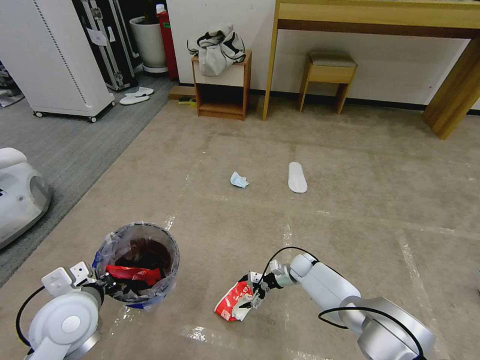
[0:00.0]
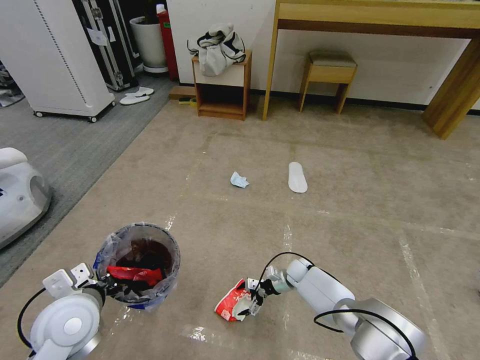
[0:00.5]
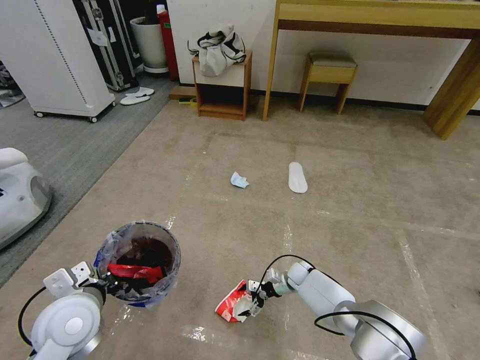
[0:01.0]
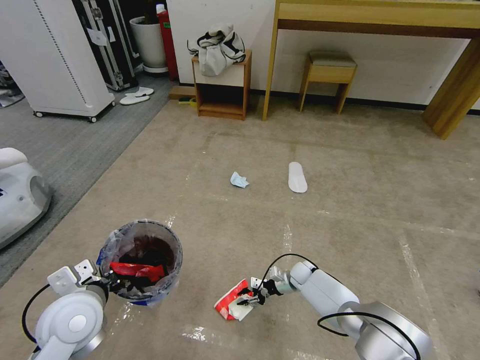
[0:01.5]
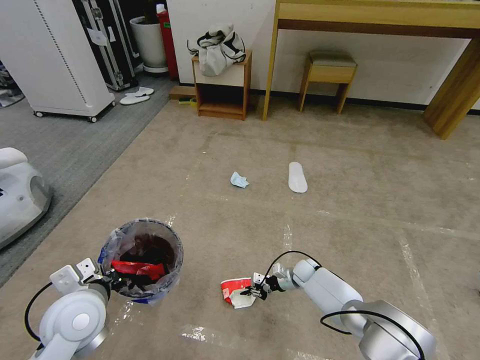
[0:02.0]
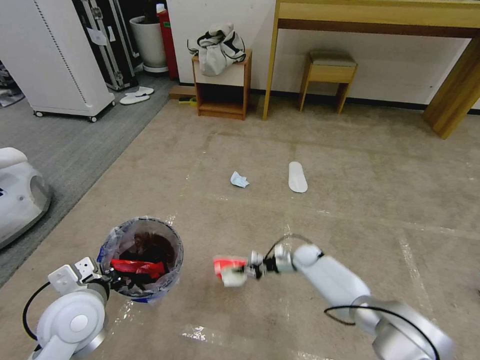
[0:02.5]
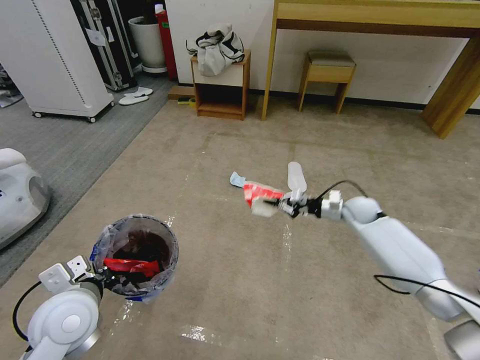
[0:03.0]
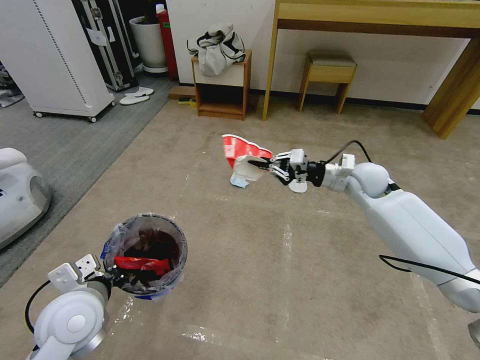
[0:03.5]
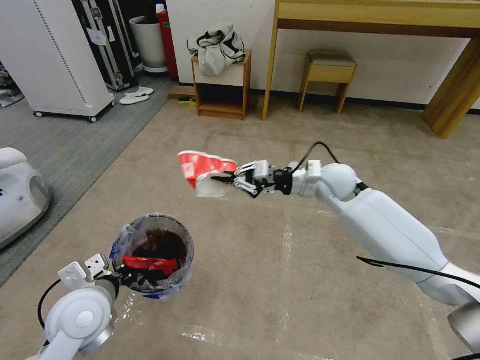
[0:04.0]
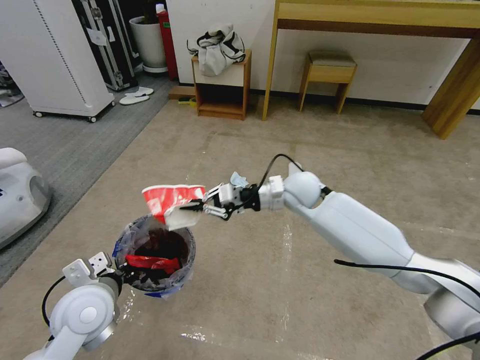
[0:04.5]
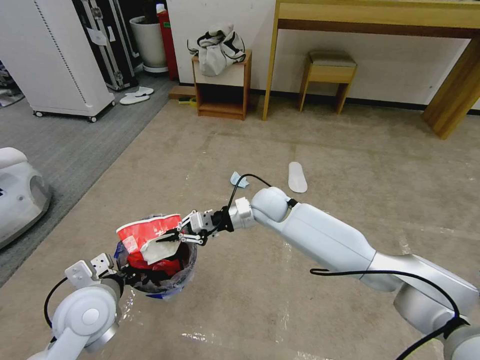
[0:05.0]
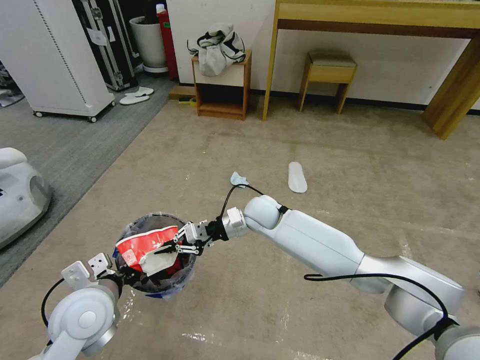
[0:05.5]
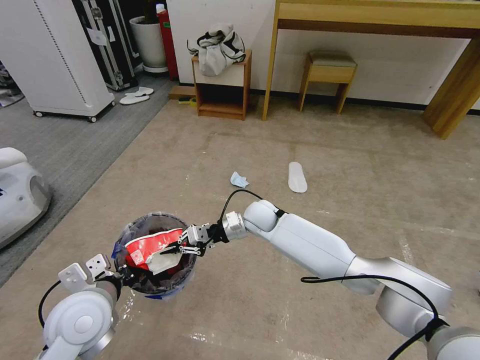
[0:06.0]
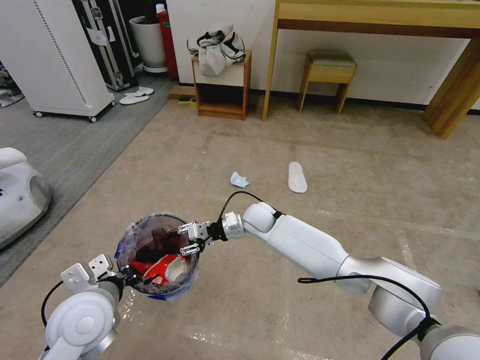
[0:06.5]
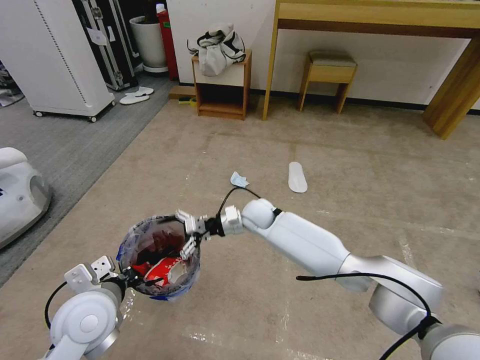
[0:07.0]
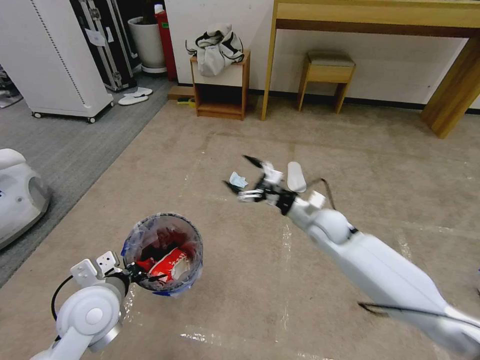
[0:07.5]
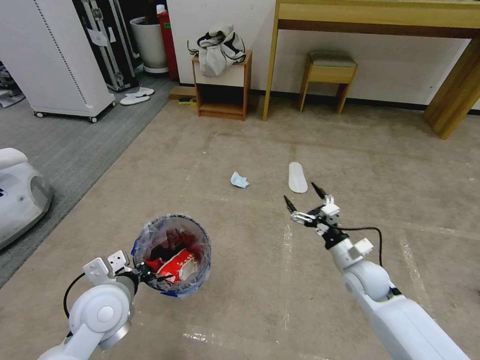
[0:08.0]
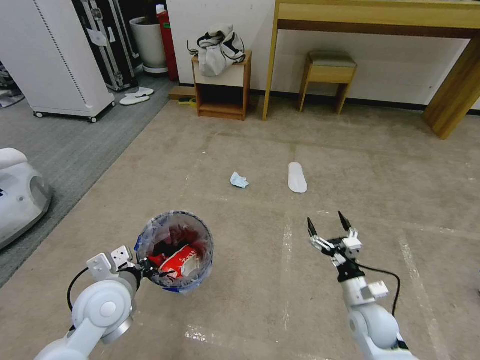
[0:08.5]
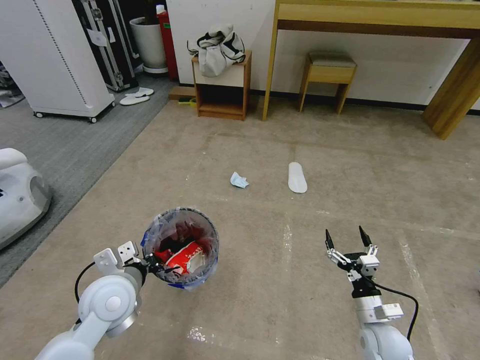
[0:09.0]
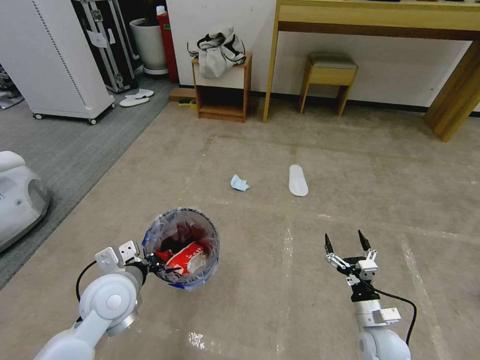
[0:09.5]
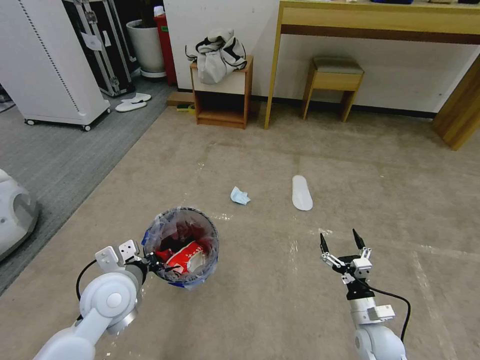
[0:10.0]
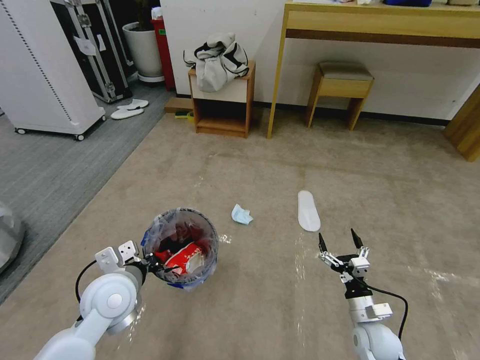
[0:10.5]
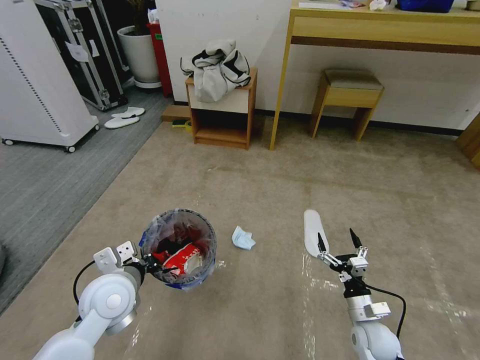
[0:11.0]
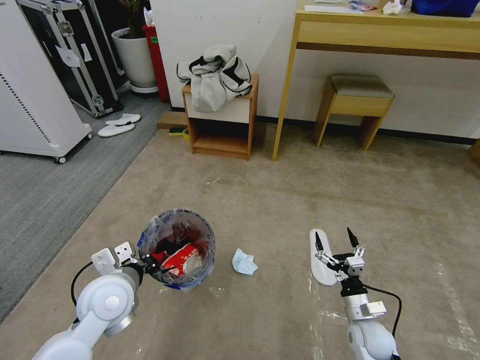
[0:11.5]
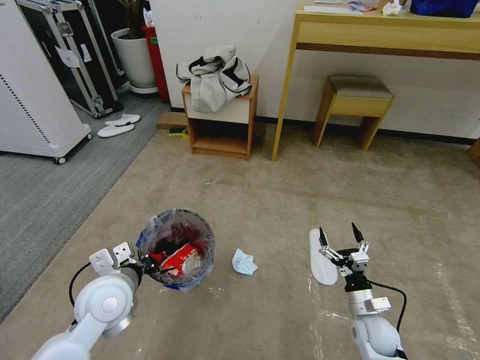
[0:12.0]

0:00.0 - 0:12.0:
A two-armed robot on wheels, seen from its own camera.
Task of the whole recording: Pick up the trash bin and place the garbage on the floor into it.
0:00.0 - 0:02.0: The right gripper closes up.
0:02.0 - 0:04.0: The right gripper moves upward, about 40 cm.
0:04.0 - 0:06.0: The right gripper shifts roughly 20 cm to the left and downward.
0:06.0 - 0:08.0: The right gripper goes approximately 30 cm to the right and backward, and opens its fingers.
0:08.0 - 0:10.0: The right gripper moves backward and downward, about 15 cm.

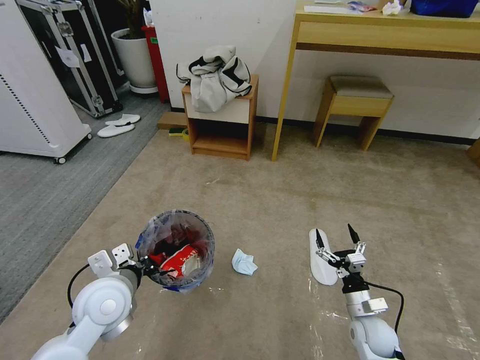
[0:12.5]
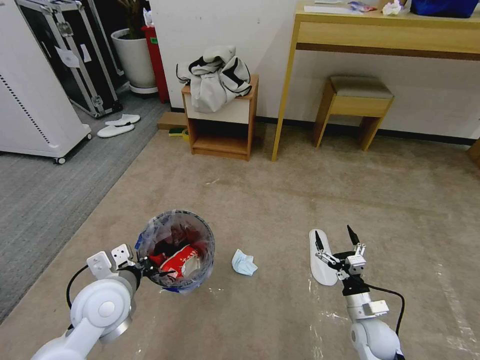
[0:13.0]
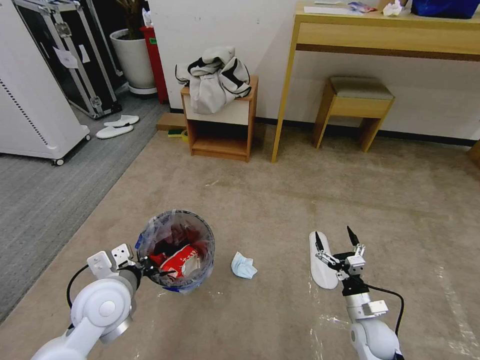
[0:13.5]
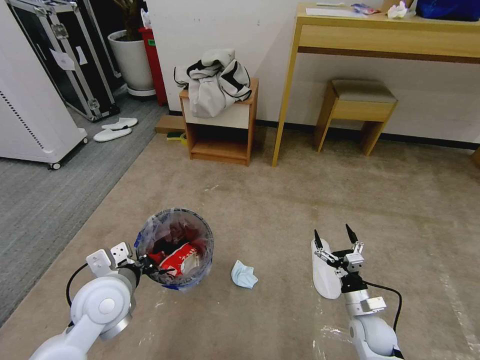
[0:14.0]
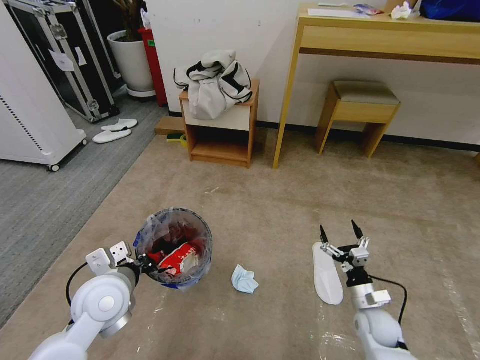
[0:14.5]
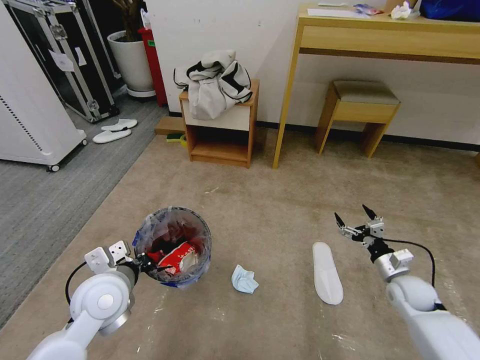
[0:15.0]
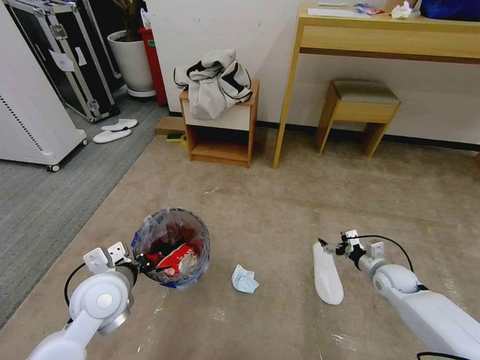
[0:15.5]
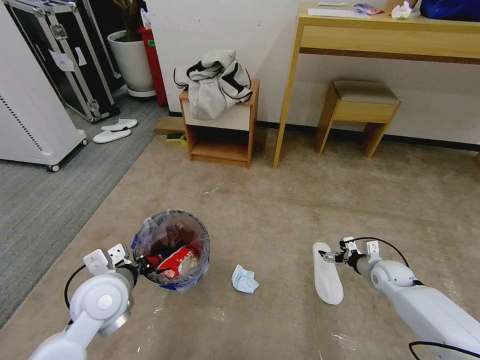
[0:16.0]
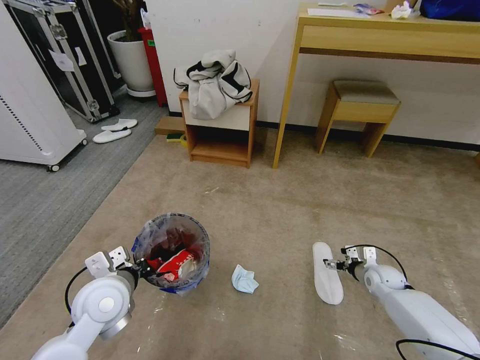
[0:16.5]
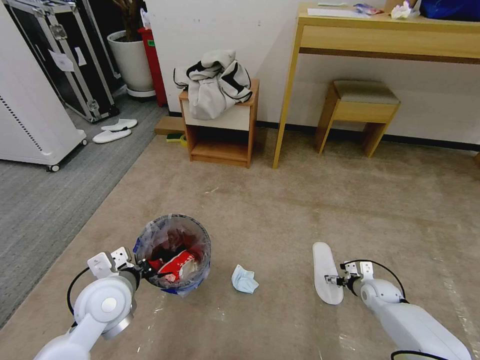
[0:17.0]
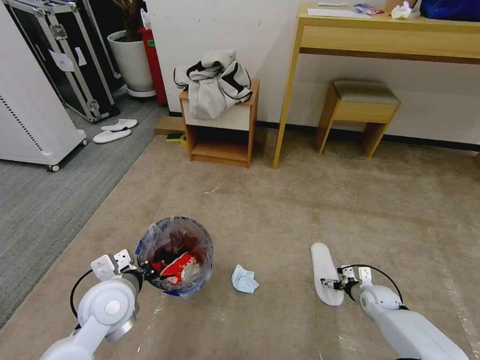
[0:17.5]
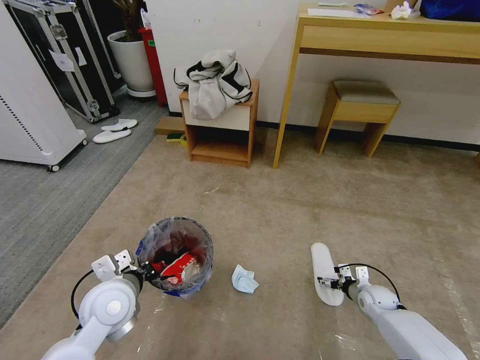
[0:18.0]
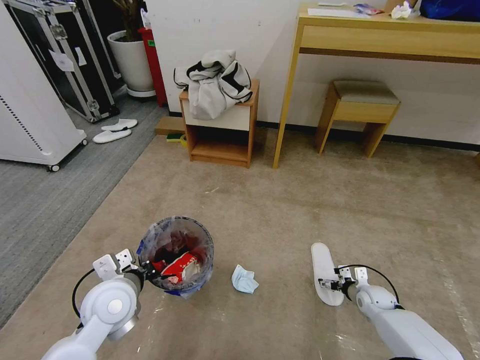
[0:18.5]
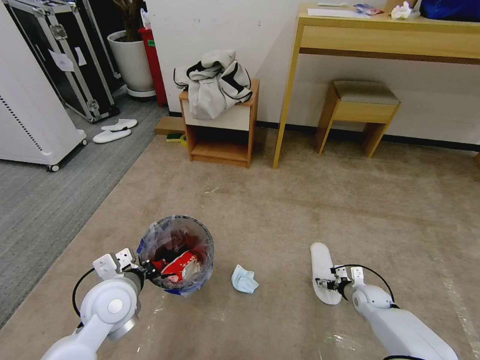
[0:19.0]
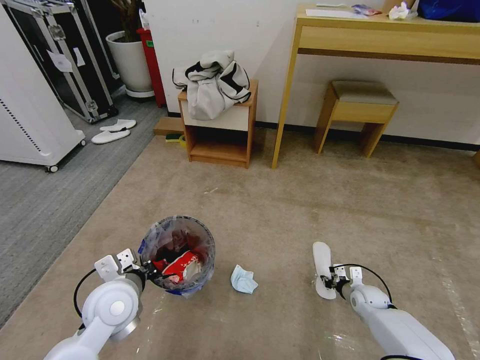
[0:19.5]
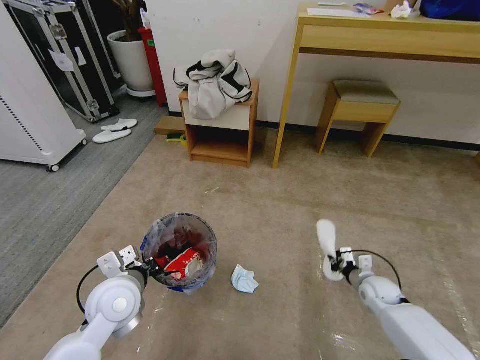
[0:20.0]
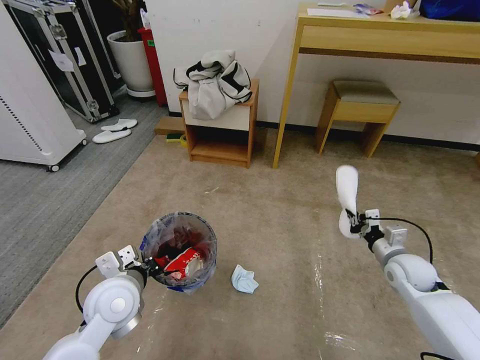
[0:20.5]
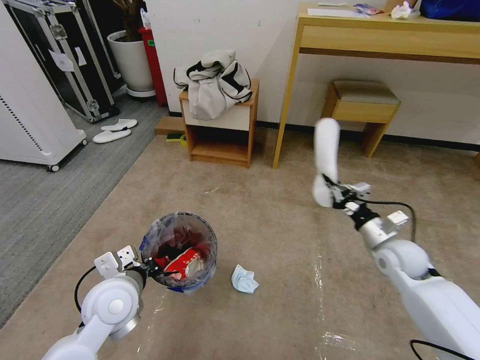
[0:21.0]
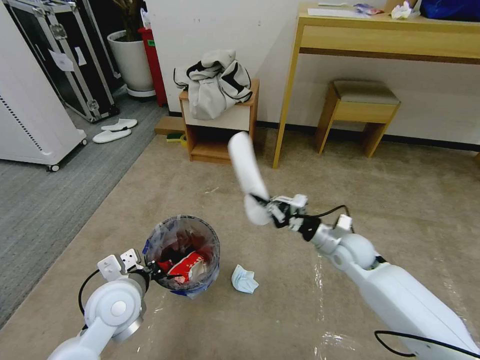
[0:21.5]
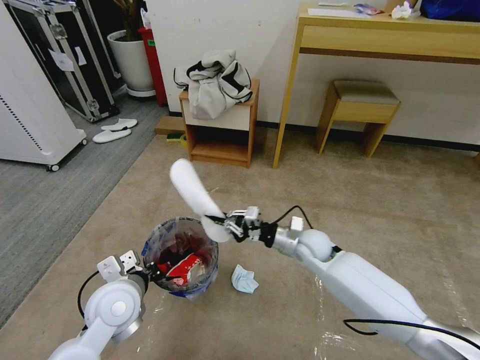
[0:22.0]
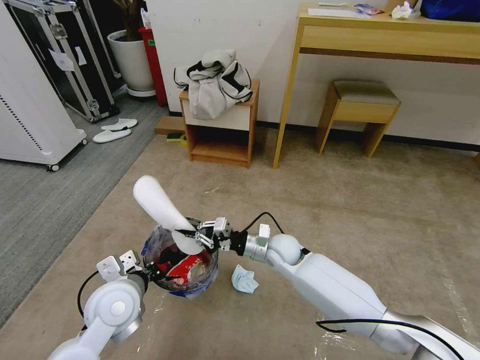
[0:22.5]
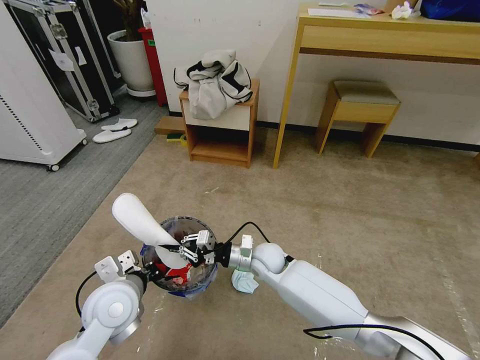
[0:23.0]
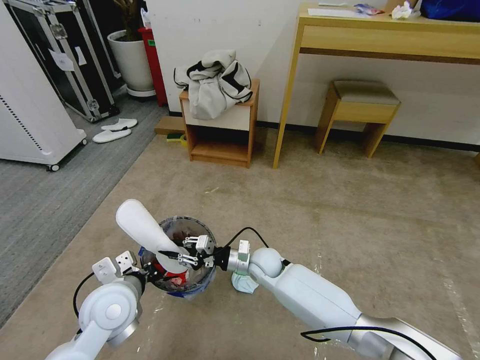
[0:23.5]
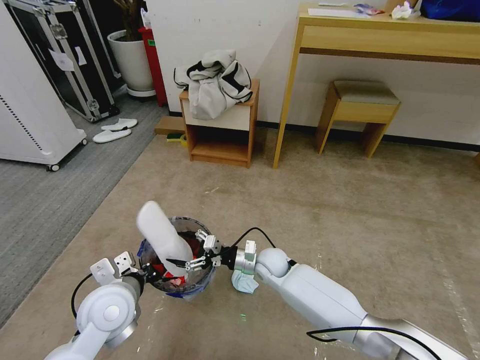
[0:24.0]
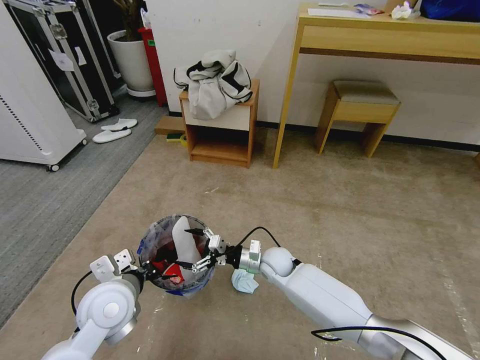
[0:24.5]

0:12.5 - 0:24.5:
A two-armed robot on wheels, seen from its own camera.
Task of the whole recording: Pick up the trash bin and place the garbage on the floor into it.
0:14.5 - 0:16.5: The right gripper goes roughly 15 cm forward and to the right.
0:16.5 - 0:18.5: The right gripper goes roughly 5 cm downward.
0:18.5 - 0:20.5: The right gripper heads upward, covering about 20 cm, and closes up.
0:20.5 - 0:22.5: The right gripper is displaced to the left by some 30 cm.
0:22.5 - 0:24.5: The right gripper is displaced downward by approximately 5 cm, and opens.

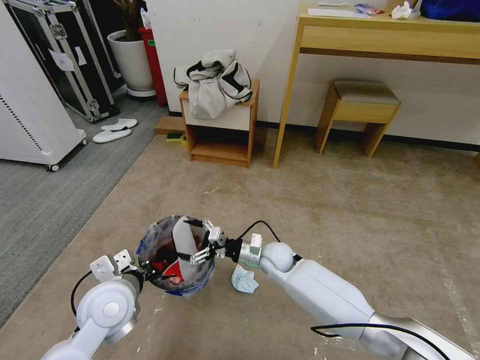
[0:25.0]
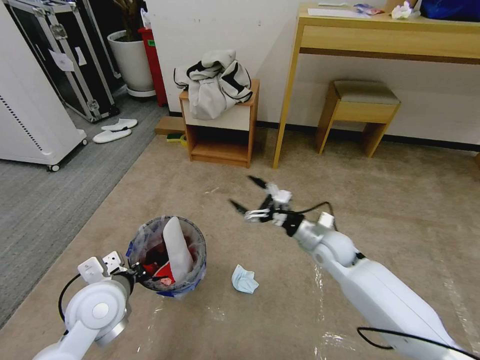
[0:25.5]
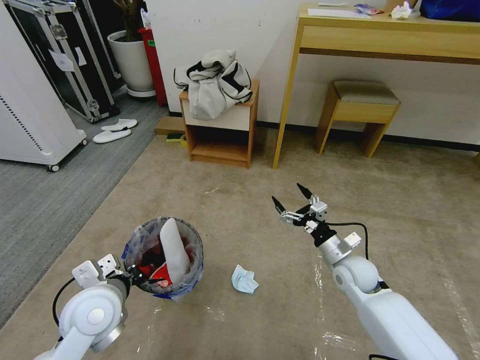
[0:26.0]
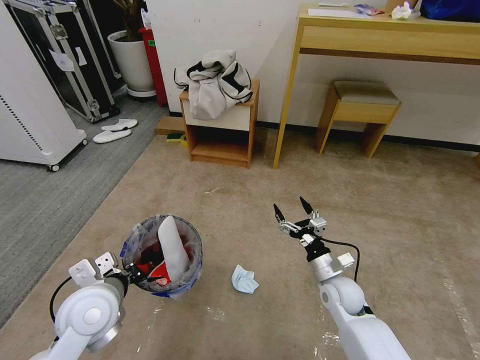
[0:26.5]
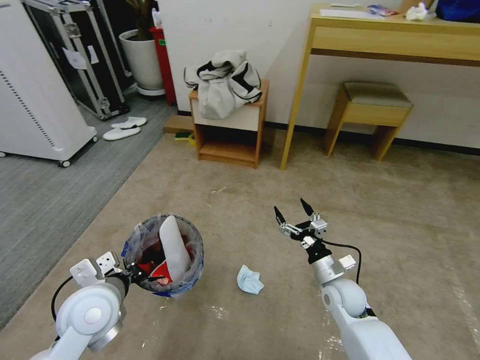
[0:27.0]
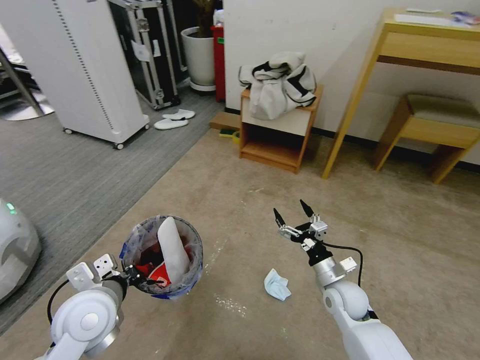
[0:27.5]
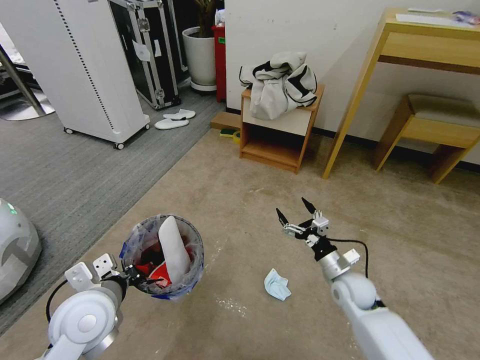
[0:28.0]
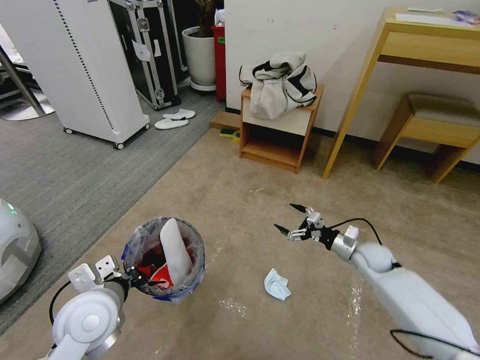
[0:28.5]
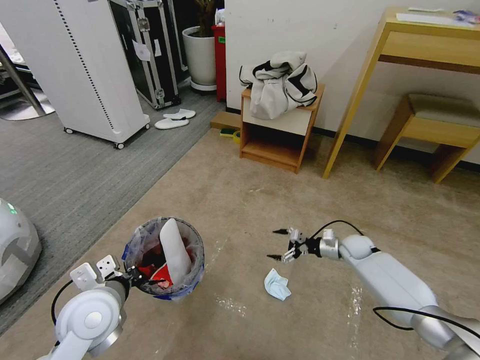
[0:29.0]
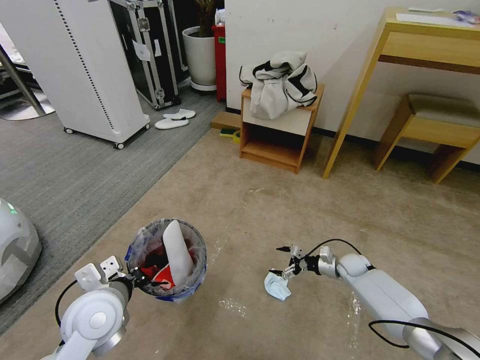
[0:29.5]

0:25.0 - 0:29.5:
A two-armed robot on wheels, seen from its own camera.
Task of the whole recording: Pick up the trash bin and place the garbage on the floor into it.
0:25.0 - 0:27.0: The right gripper heads to the right and backward, covering roughly 20 cm.
0:27.0 - 0:29.5: The right gripper goes roughly 20 cm forward, to the right and downward.
